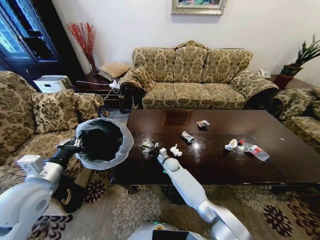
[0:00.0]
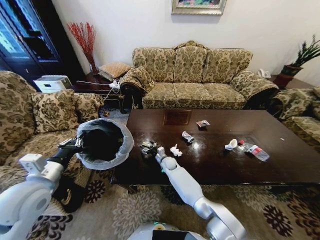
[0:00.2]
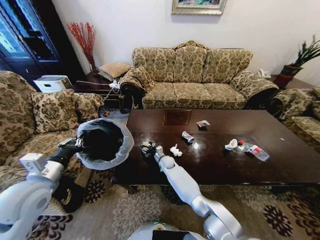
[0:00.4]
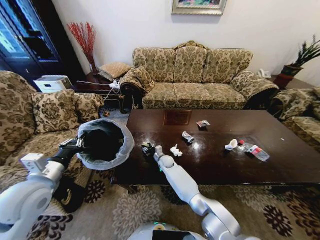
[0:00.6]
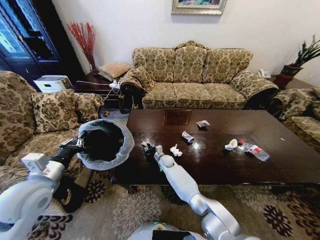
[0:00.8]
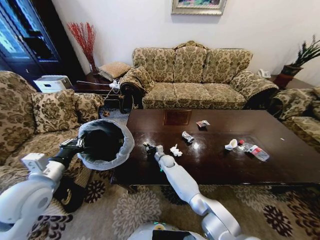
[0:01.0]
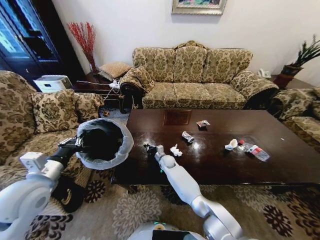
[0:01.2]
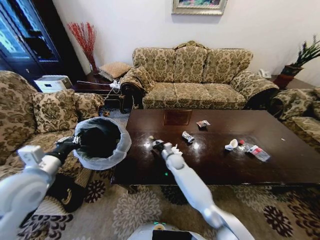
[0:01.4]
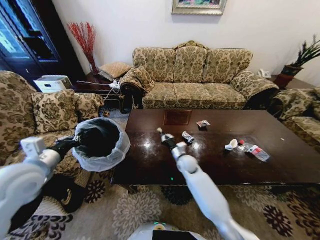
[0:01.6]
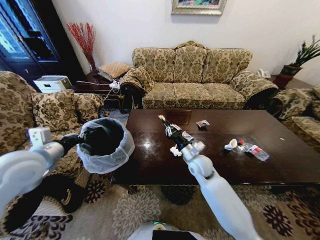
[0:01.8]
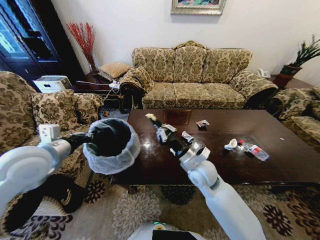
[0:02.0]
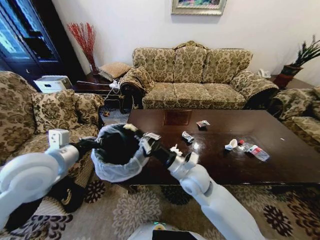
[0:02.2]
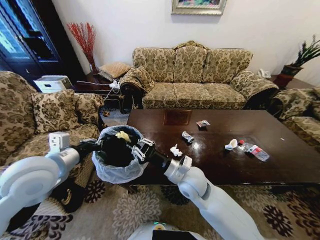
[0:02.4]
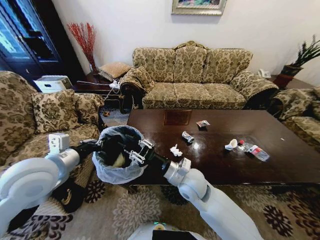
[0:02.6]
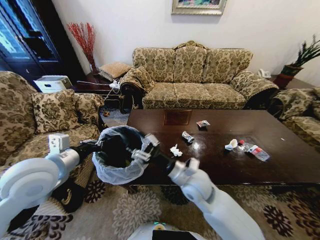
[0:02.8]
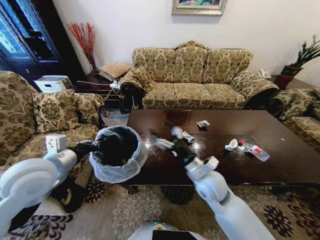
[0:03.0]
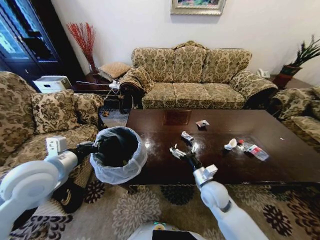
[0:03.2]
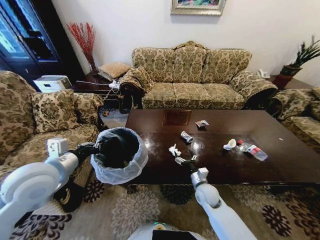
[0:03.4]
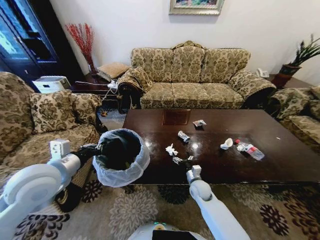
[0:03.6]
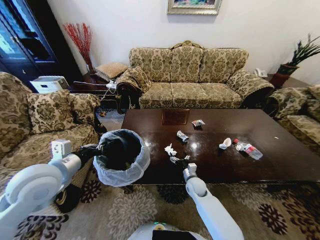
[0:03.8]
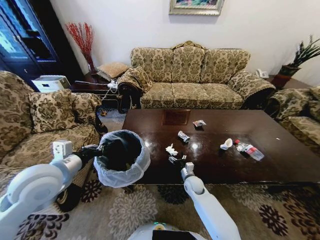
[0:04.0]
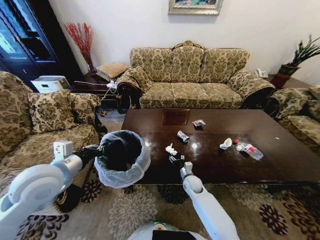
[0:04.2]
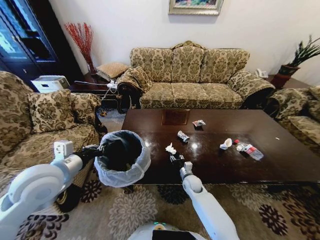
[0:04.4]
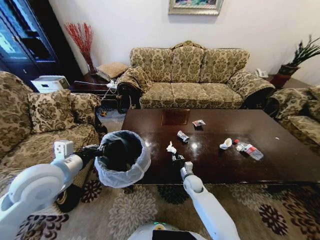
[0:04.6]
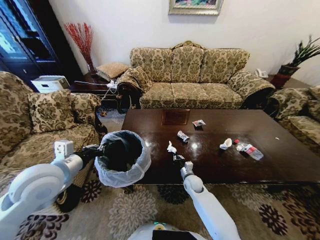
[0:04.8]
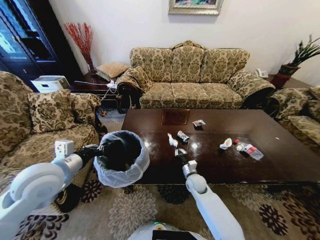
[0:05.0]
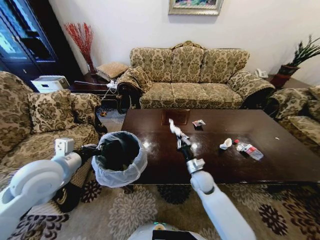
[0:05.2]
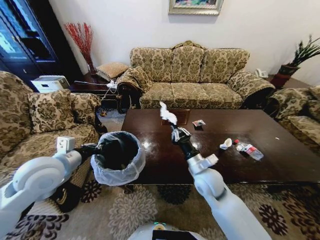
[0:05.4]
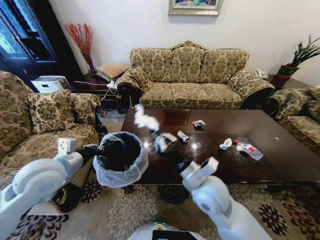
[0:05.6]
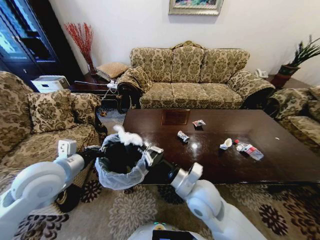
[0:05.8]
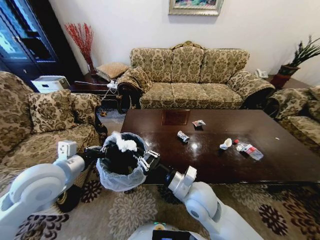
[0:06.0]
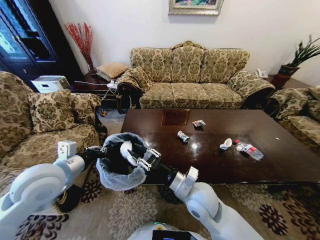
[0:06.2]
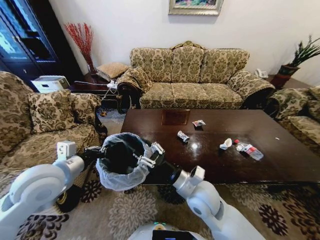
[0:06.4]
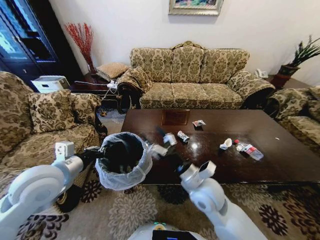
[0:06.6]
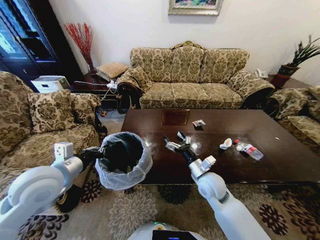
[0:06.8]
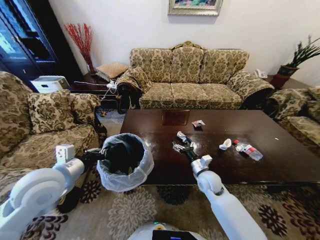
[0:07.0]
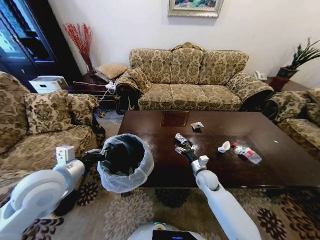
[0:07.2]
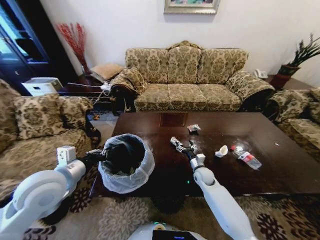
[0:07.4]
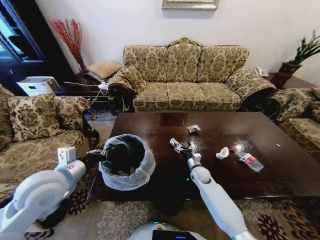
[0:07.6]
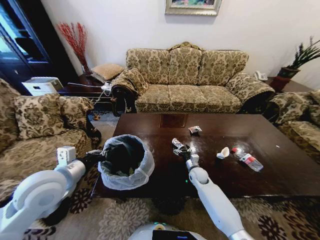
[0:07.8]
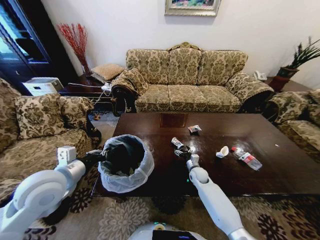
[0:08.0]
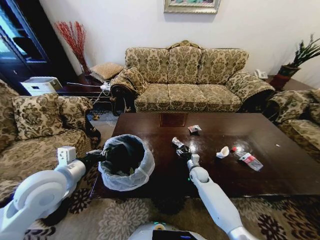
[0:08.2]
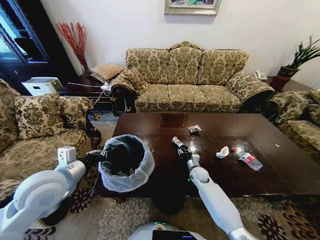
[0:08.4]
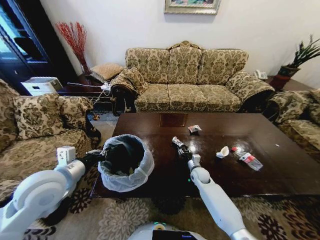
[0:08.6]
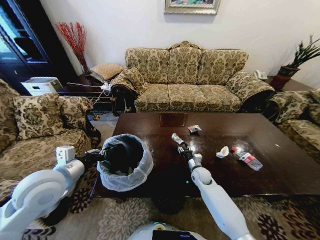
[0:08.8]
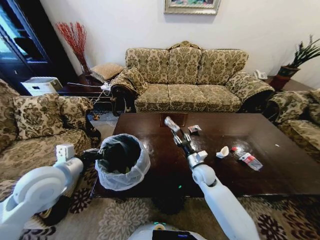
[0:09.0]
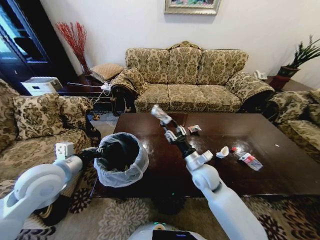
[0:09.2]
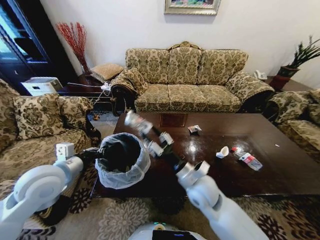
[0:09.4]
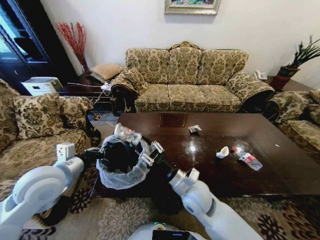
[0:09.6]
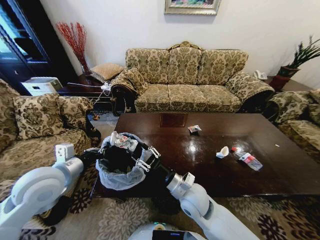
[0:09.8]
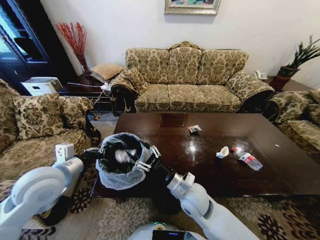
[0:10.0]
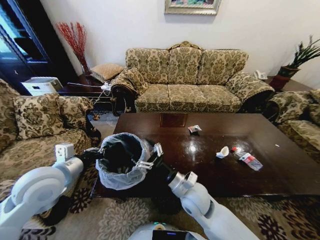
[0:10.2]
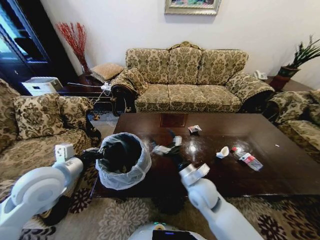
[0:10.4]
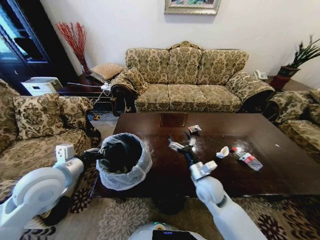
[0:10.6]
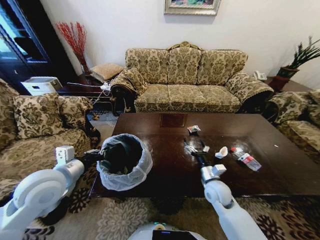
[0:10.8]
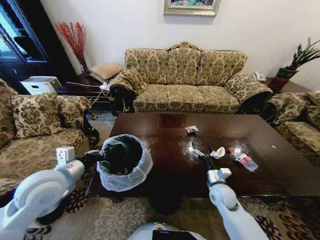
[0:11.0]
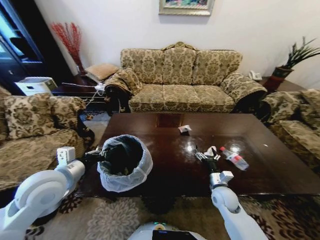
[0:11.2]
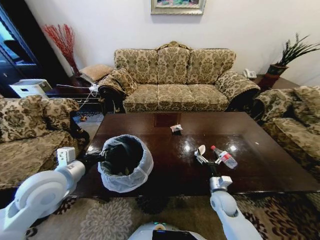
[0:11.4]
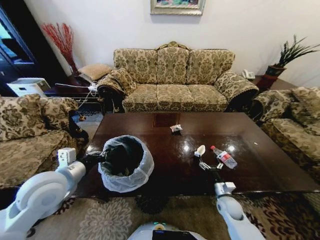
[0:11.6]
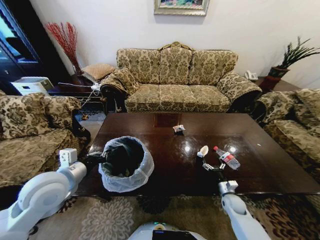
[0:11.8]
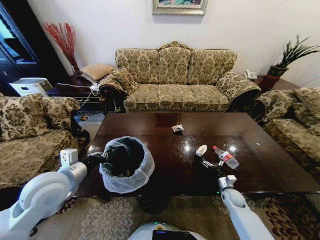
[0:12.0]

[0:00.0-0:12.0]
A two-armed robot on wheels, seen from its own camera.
Task of the whole recording: Move to the front of the table and place the trash on the table into the trash bin.
0.0 to 1.6 s: The right gripper moves upward, to the right and backward, about 15 cm, and closes its fingers. The left gripper changes place by roughly 5 cm.
1.6 to 3.0 s: The right gripper travels backward and upward by roughly 15 cm, and opens up; the left gripper heads to the right, covering some 5 cm.
3.0 to 4.4 s: The right gripper travels downward and forward by roughly 25 cm.
4.4 to 6.0 s: The right gripper shifts about 25 cm upward and backward, and closes.
6.0 to 7.6 s: The right gripper travels downward, forward and to the right by approximately 30 cm, and opens.
7.6 to 9.0 s: The right gripper goes some 10 cm upward, and closes.
9.0 to 10.4 s: The right gripper heads backward, upward and to the left, covering about 15 cm, and opens up.
10.4 to 12.0 s: The right gripper shifts about 35 cm to the right and downward.

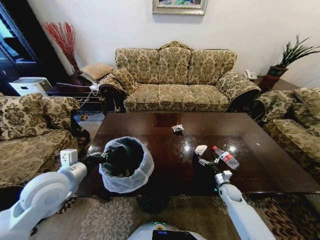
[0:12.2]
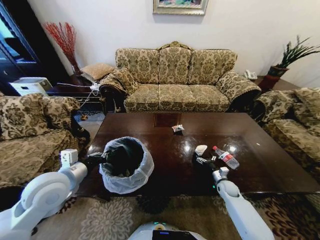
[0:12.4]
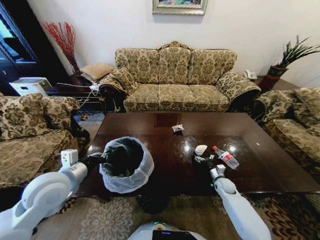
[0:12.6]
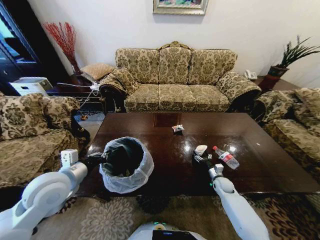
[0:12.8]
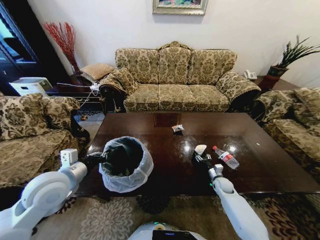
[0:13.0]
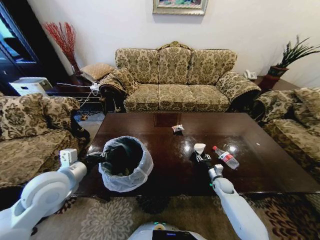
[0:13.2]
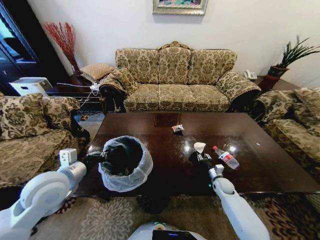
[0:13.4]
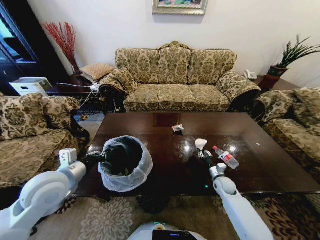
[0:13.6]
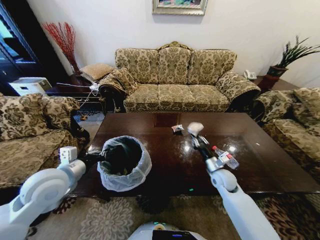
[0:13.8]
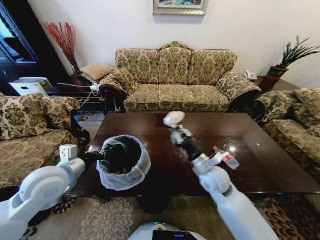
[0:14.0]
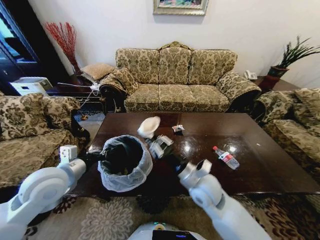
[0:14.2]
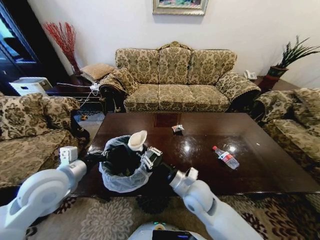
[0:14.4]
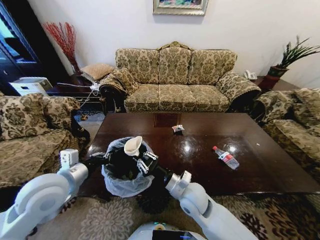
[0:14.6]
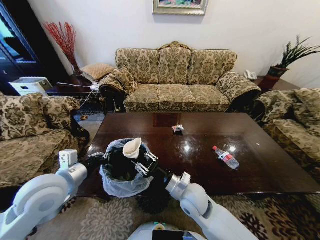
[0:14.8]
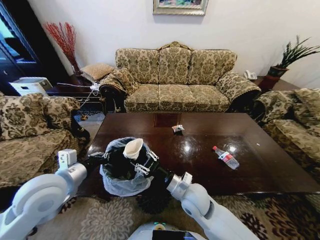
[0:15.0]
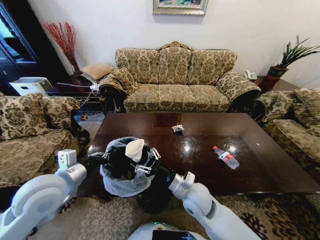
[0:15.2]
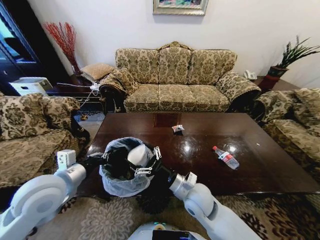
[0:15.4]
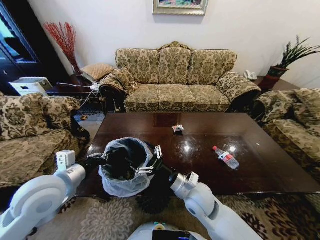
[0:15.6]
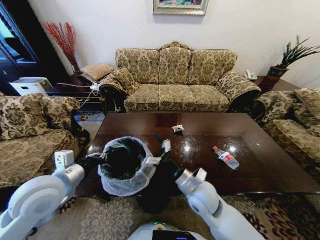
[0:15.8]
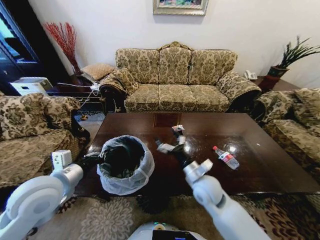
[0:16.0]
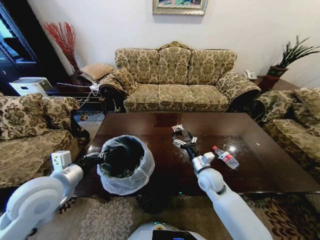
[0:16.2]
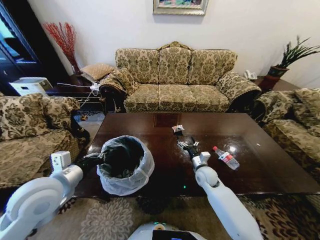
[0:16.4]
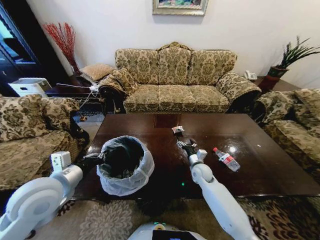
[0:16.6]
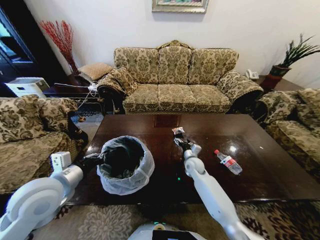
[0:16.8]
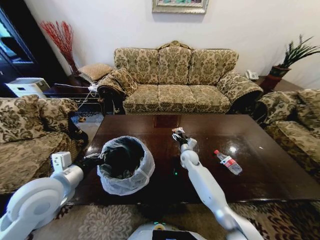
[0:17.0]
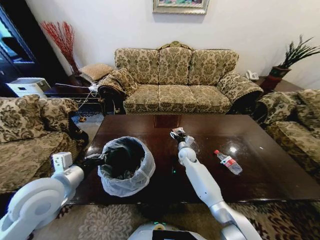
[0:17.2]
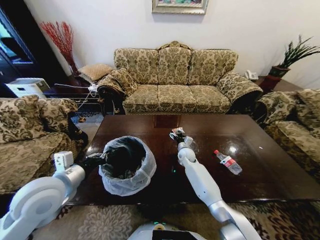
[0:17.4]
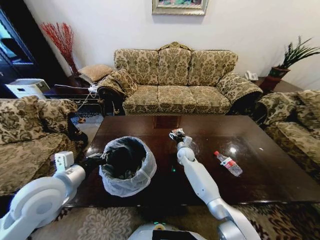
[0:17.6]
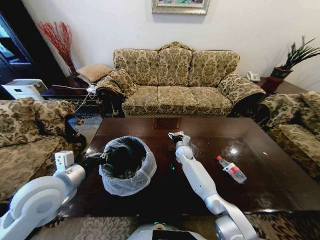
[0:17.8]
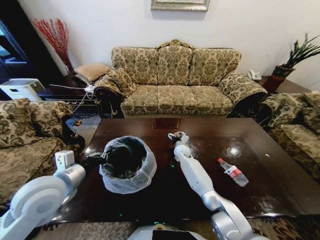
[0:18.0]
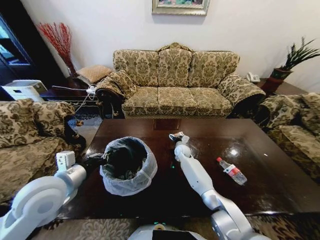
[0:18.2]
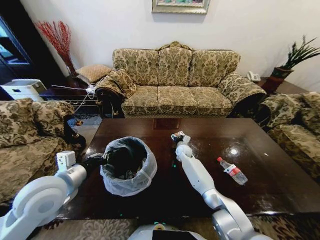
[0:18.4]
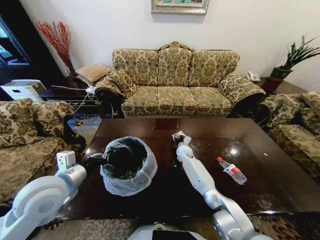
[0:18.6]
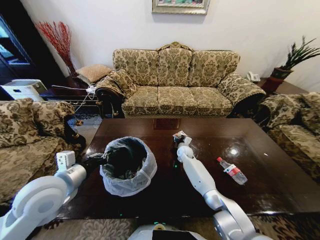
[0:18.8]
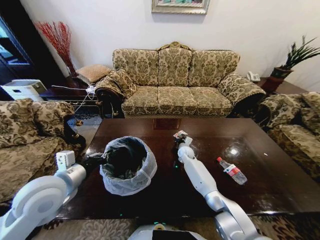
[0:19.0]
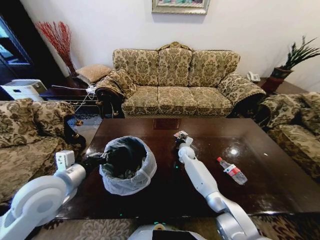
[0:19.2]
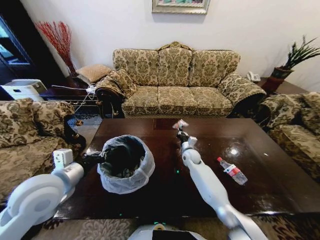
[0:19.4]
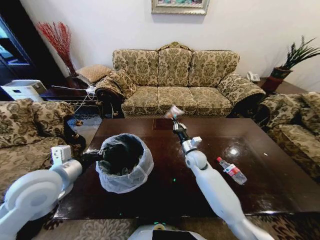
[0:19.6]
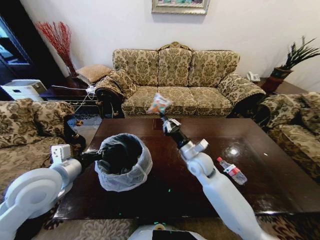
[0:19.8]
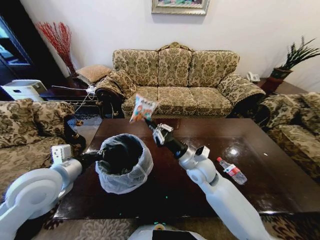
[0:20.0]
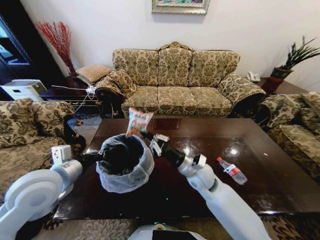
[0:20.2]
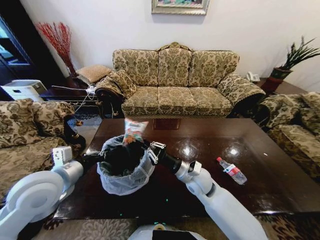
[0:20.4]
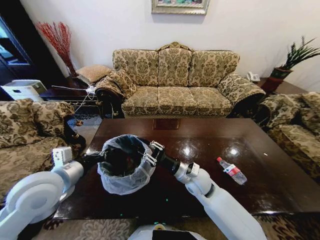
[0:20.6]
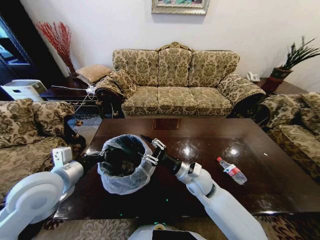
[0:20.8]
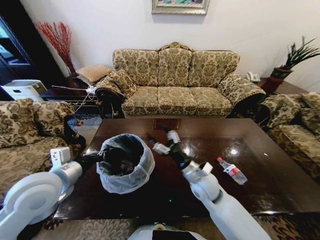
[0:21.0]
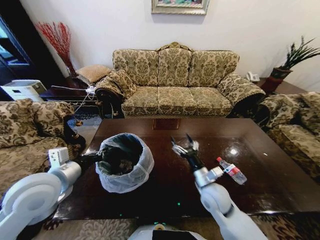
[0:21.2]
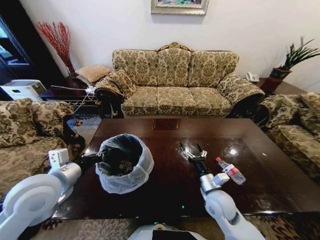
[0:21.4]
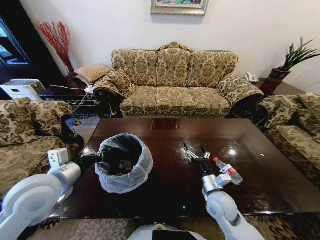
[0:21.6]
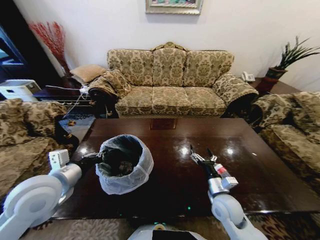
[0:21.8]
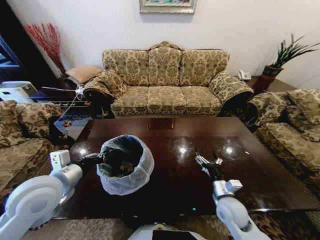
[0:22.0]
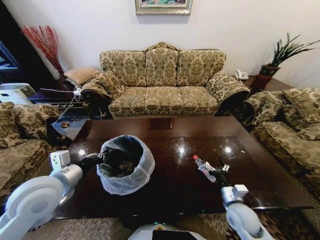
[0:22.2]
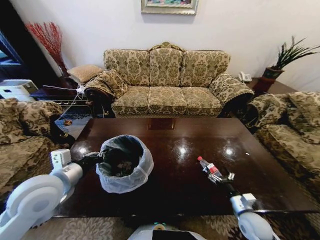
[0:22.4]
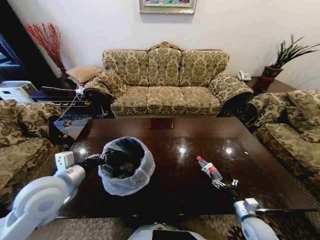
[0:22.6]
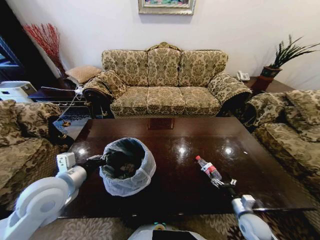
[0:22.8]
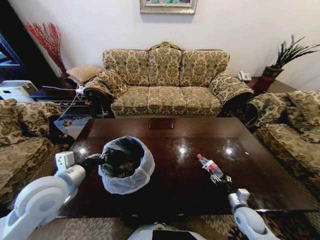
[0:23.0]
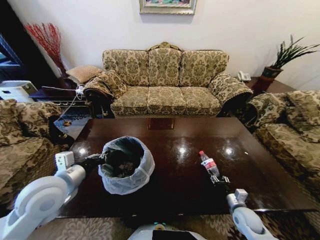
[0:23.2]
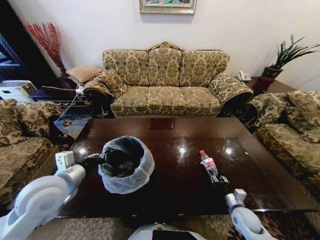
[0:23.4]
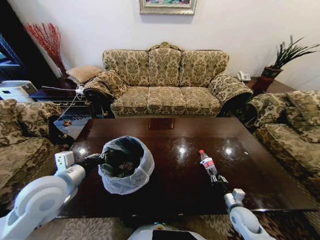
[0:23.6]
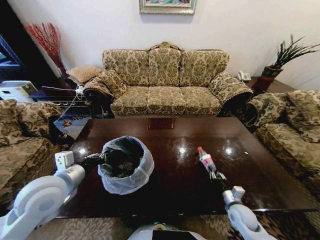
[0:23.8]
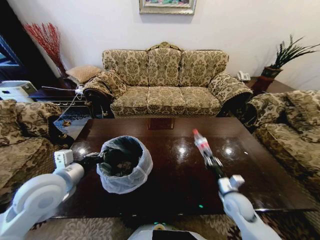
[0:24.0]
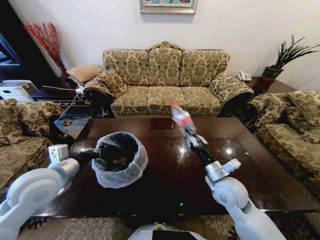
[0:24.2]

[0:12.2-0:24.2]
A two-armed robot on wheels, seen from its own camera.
Task of the whole recording: Move to the front of the table and place the trash on the table into the trash bin.
12.2 to 13.8 s: The right gripper is displaced upward and to the left by about 15 cm, and closes its fingers.
13.8 to 15.2 s: The right gripper shifts some 20 cm to the left, backward and upward, and opens up.
15.2 to 16.6 s: The right gripper moves forward, downward and to the right, about 20 cm.
16.6 to 18.2 s: The right gripper is displaced forward and to the left by roughly 15 cm.
18.2 to 19.8 s: The right gripper heads backward and upward, covering some 20 cm, and closes its fingers.
19.8 to 21.2 s: The right gripper moves backward, approximately 10 cm, and opens up.
21.2 to 22.6 s: The right gripper is displaced to the right and downward by approximately 25 cm.
22.6 to 24.2 s: The right gripper is displaced upward, to the left and forward by approximately 25 cm, and closes up.
